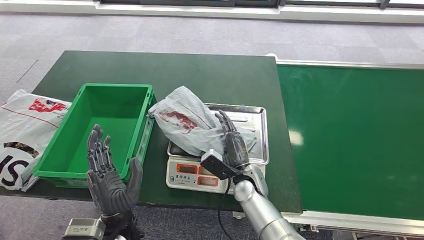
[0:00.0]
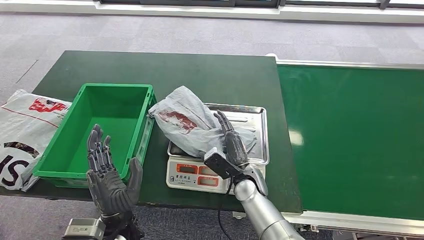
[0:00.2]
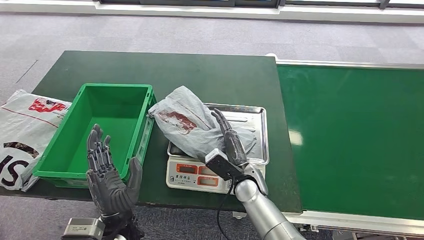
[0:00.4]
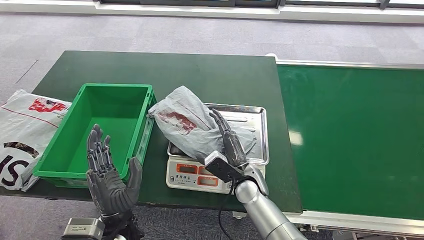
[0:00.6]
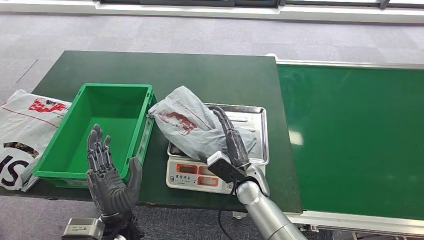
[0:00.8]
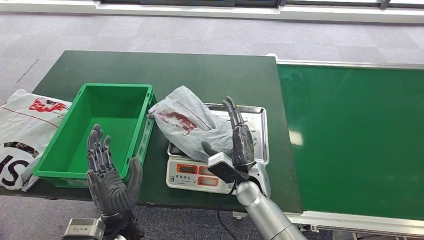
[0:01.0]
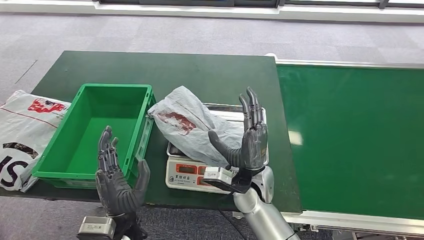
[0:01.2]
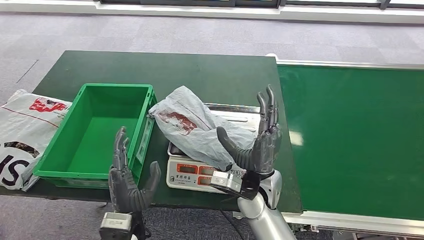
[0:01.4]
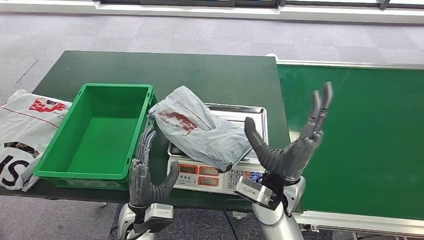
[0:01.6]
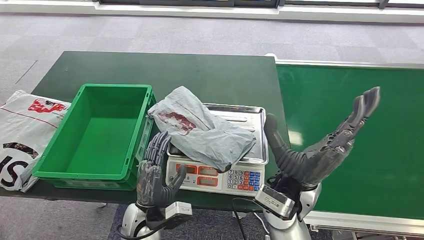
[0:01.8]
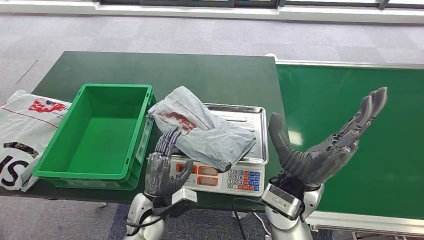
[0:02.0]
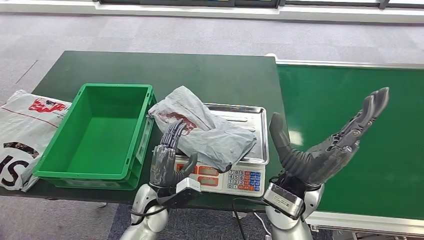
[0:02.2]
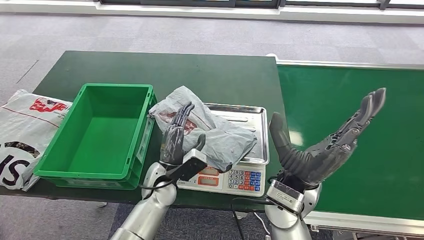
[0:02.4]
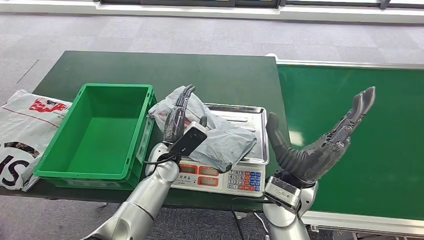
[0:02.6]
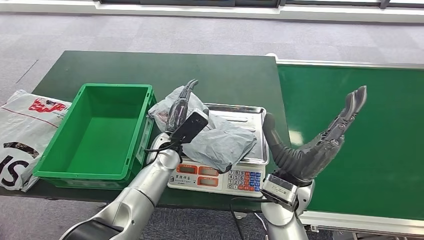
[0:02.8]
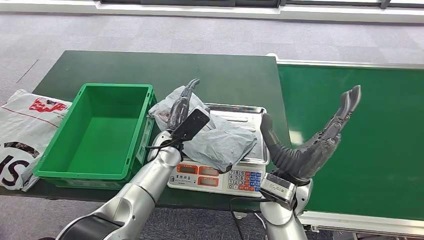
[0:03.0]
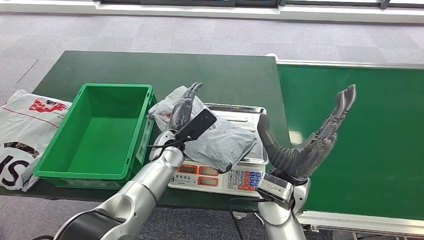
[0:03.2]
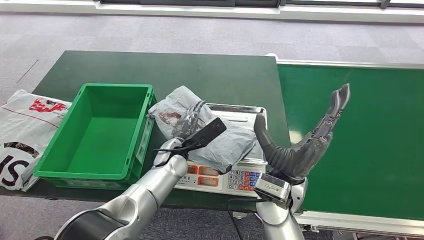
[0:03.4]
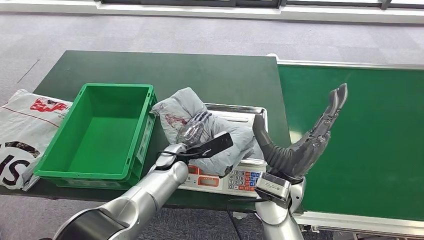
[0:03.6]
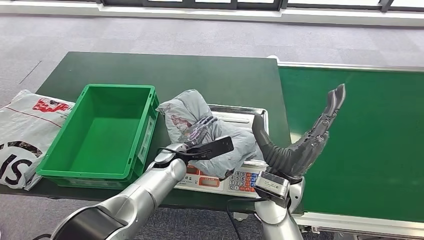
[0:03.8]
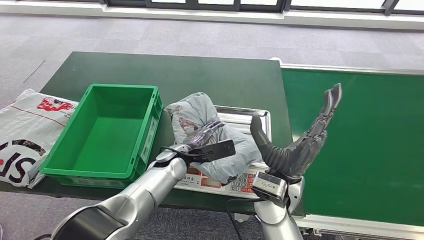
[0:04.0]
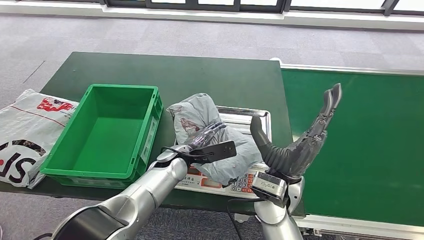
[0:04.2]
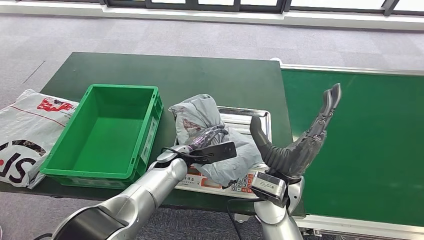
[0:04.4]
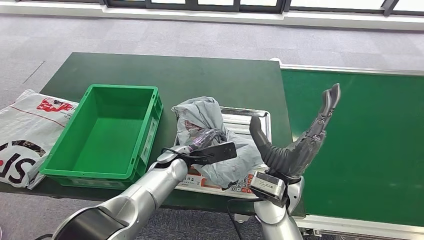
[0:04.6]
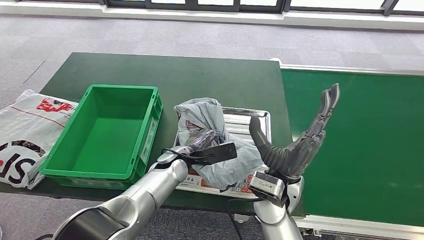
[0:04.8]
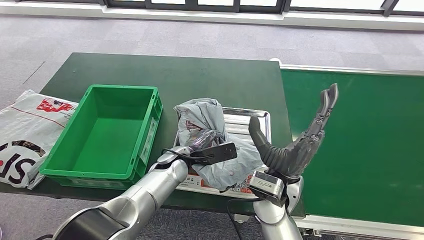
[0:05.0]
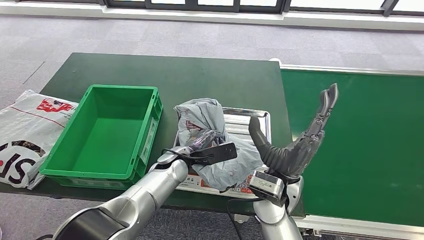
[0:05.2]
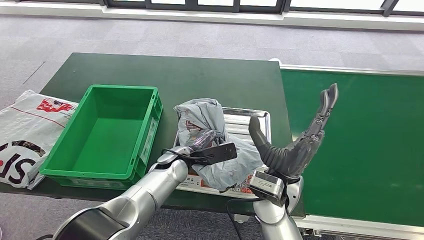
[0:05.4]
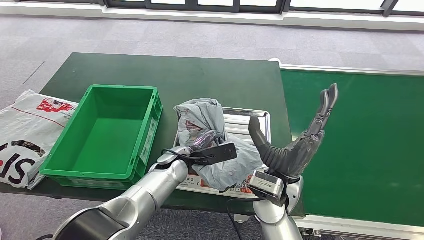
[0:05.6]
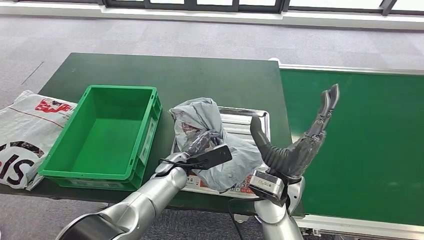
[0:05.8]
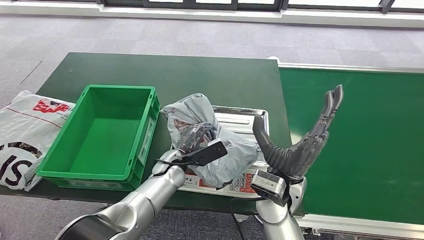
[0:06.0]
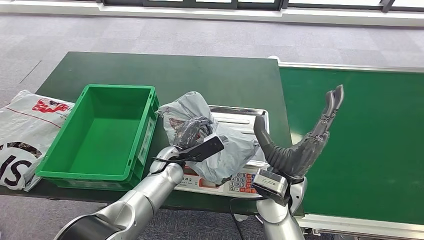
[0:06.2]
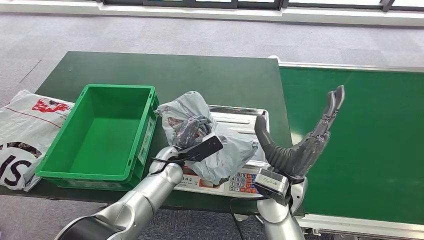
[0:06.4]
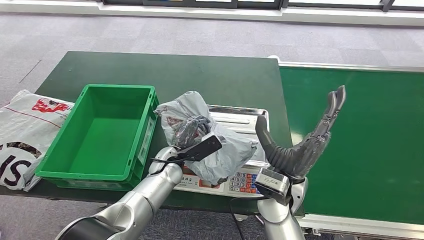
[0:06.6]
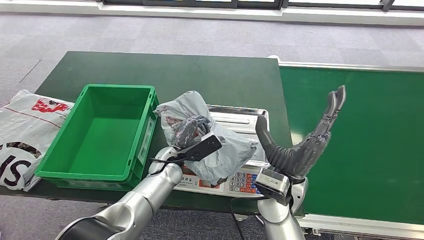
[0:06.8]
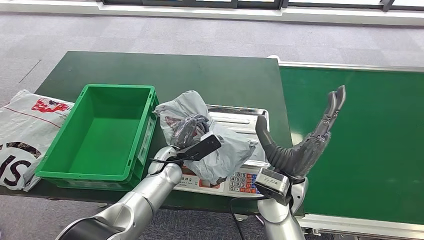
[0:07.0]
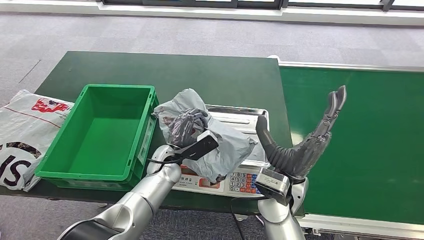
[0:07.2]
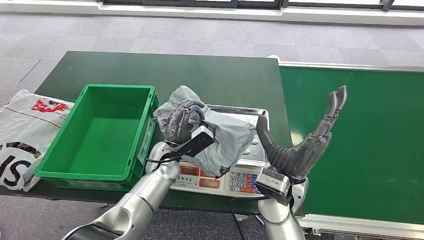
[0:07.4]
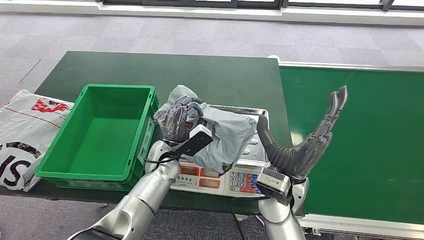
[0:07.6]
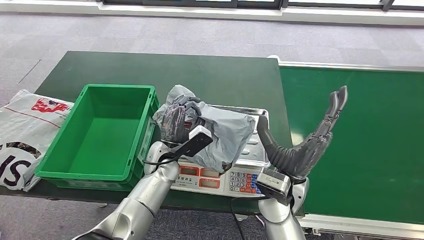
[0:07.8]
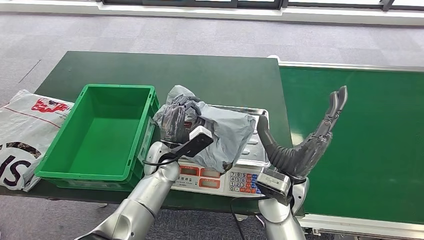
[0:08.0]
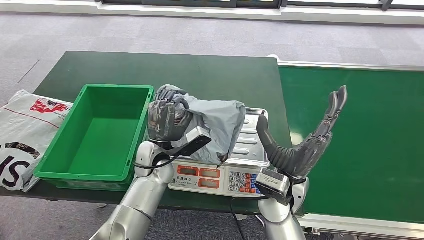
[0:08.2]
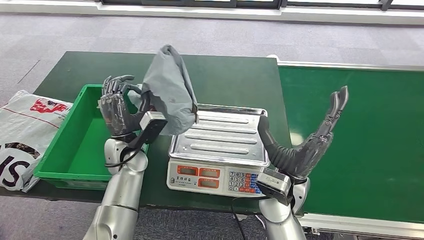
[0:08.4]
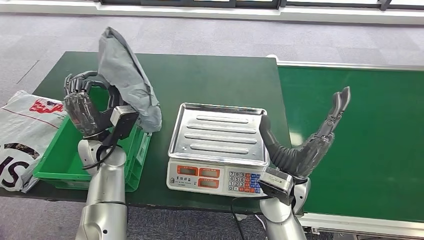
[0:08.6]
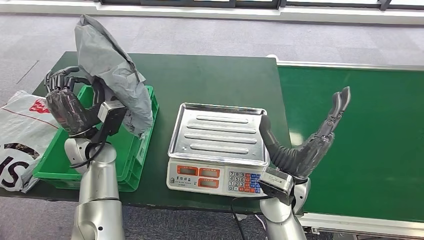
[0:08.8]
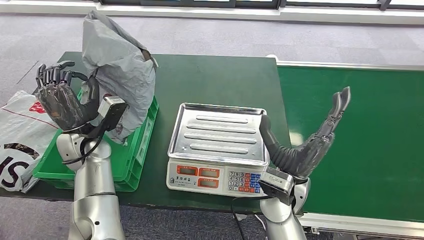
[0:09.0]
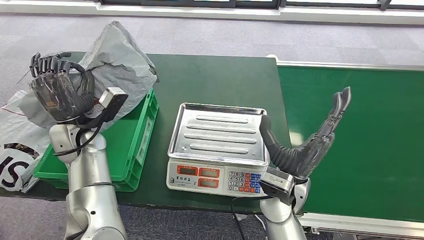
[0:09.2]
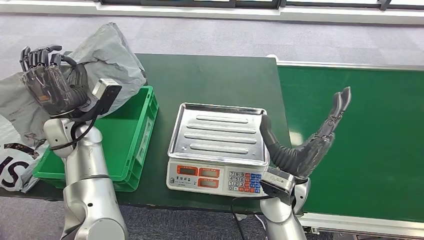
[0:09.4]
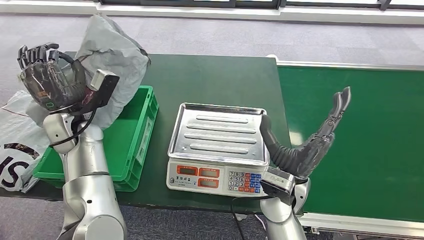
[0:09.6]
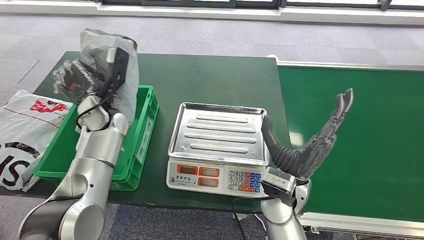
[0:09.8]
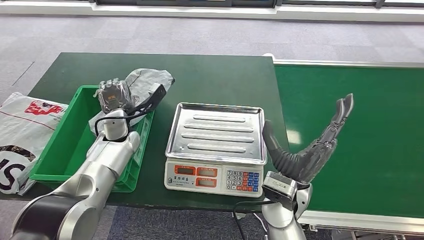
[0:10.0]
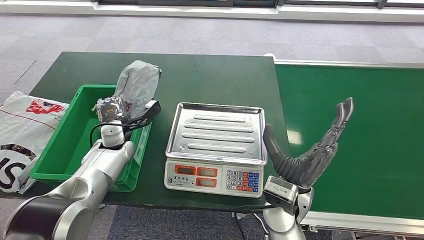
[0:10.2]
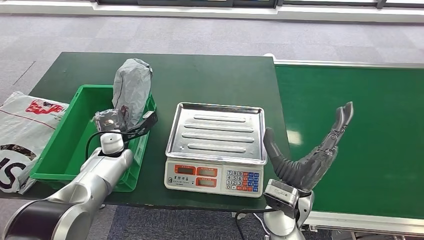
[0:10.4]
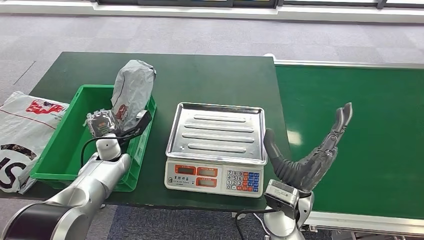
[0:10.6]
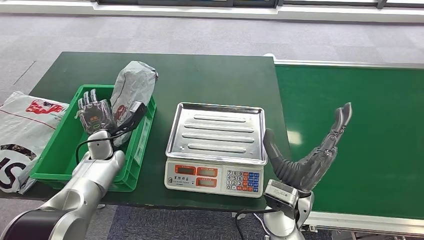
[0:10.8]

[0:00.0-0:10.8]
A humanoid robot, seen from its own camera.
Task of the whole recording: Weigh the package on the weighing device and place it in the left basket.
Step, 0:00.0 to 0:08.2: Pick up the package from the inbound machine.
Step, 0:08.4 to 0:10.8: Place the package into the parcel locker.
0:00.0 to 0:01.6: The right hand shifts some 15 cm upward.
0:01.6 to 0:03.0: The left hand travels forward by roughly 15 cm.
